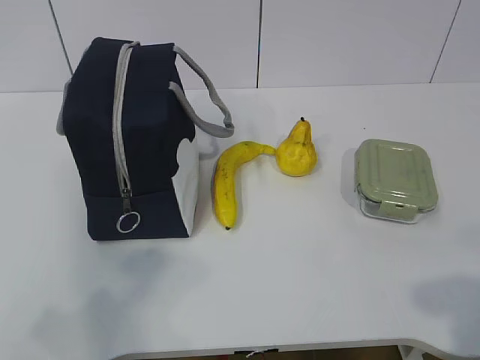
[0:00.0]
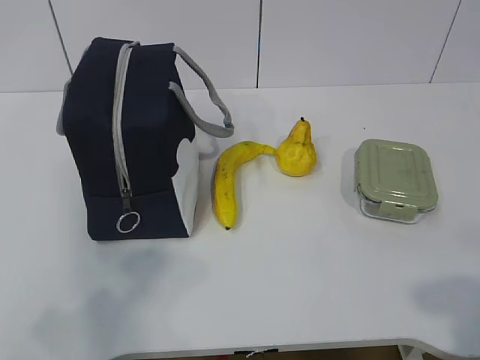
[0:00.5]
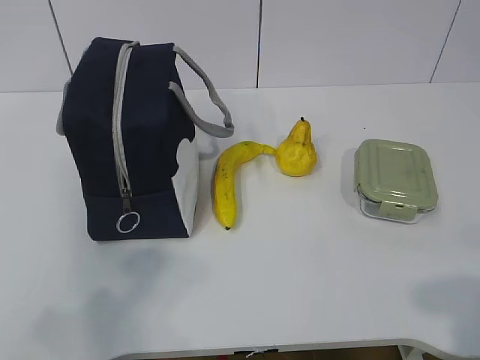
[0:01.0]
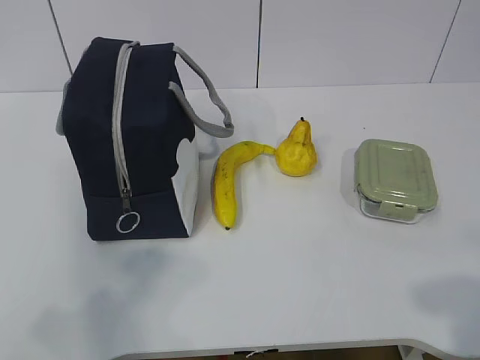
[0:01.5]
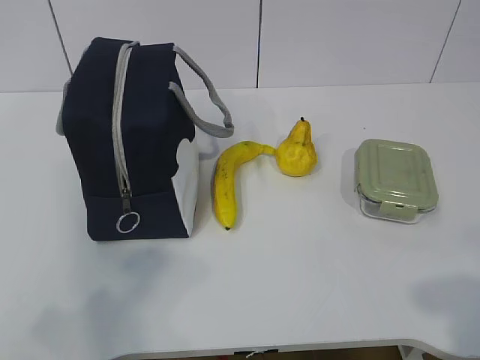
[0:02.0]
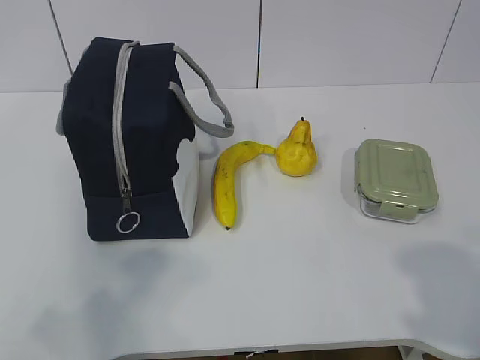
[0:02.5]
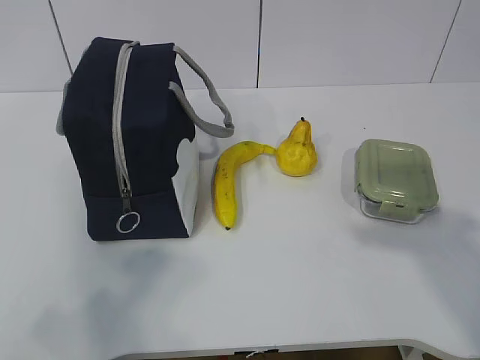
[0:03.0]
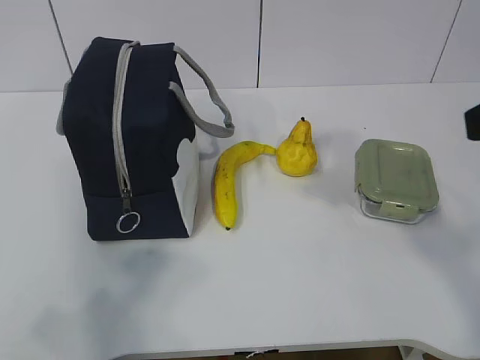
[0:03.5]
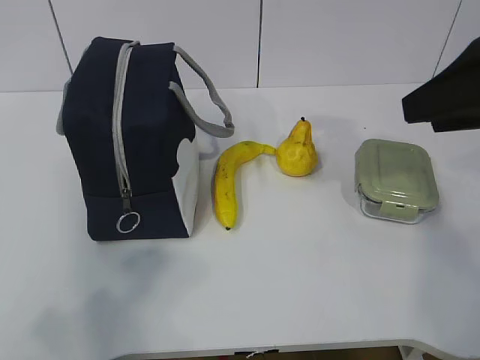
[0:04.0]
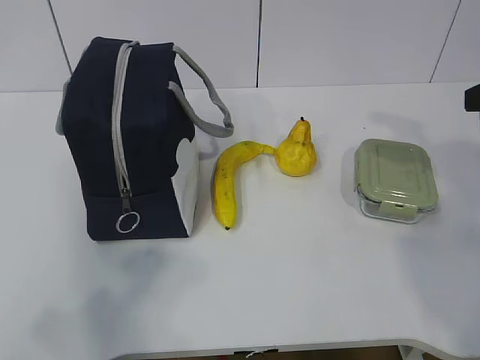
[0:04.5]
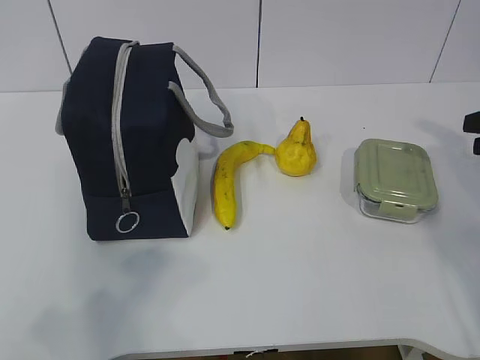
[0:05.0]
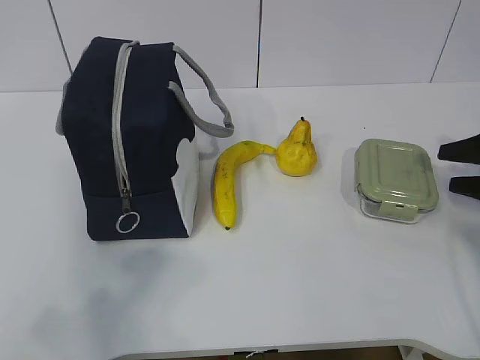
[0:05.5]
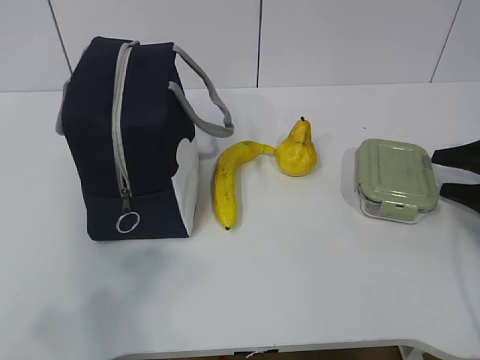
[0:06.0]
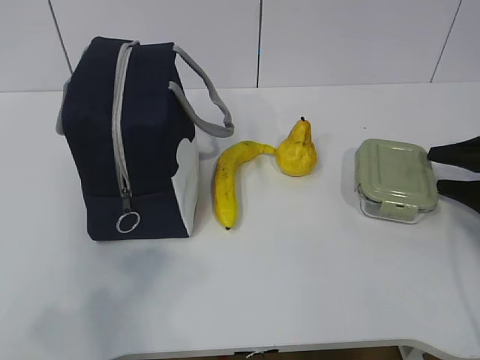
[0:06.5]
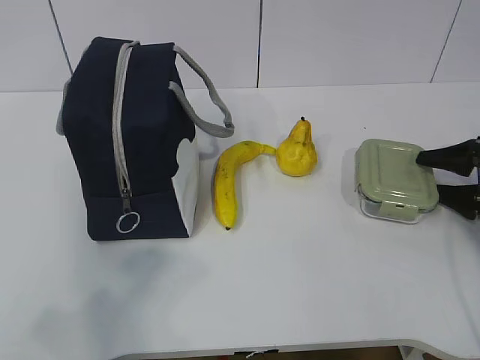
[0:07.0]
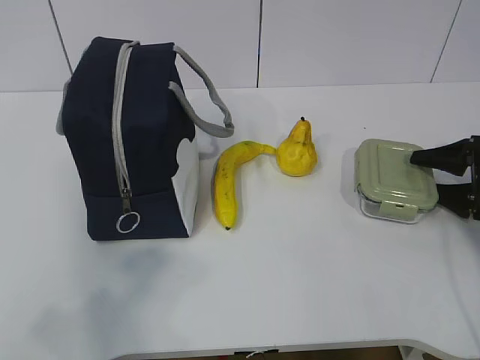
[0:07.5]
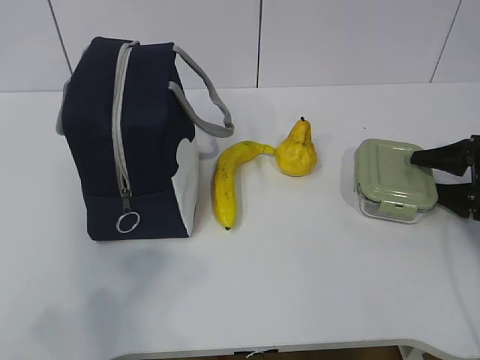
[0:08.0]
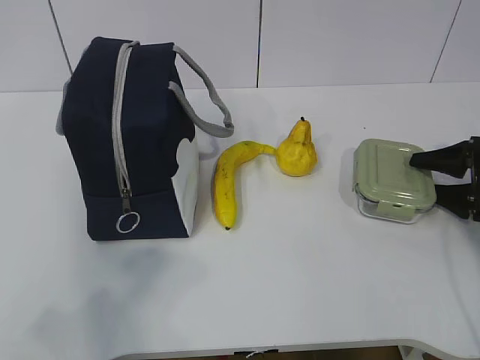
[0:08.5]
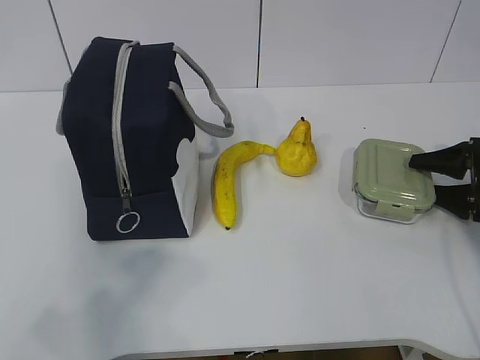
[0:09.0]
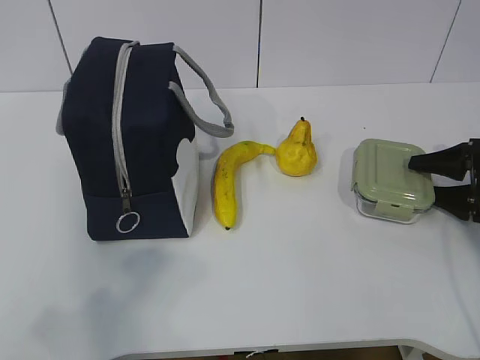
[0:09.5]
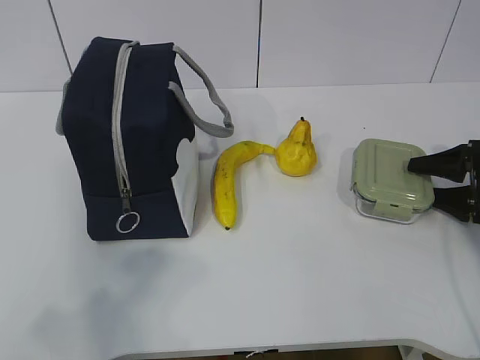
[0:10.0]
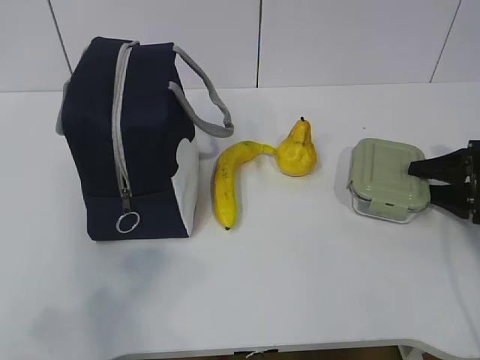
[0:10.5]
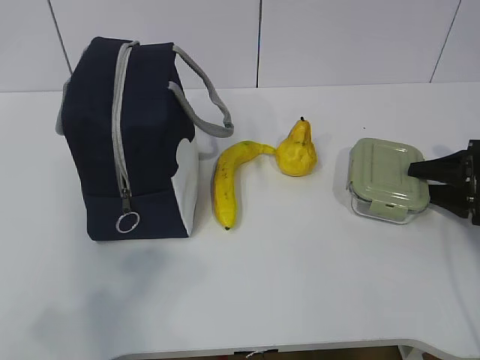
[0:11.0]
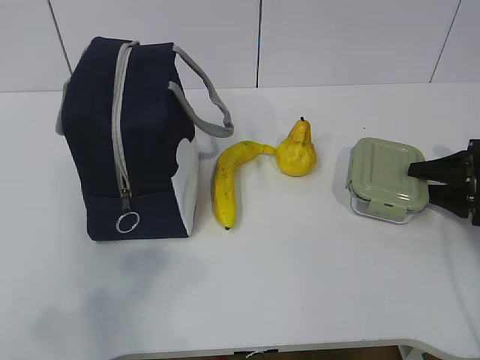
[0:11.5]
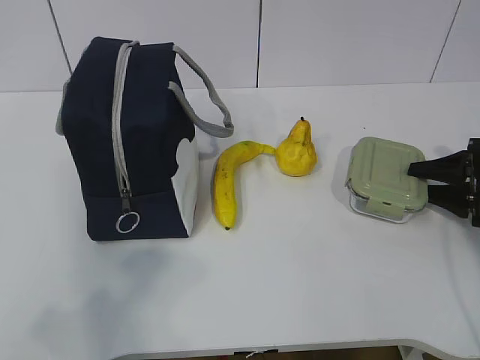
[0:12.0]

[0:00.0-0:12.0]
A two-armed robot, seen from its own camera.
Step, 0:00.0 to 0:10.0: Grab the lunch box with your right hand.
0:02.0 to 0:04.0: The right gripper is displaced forward by approximately 25 cm.
0:04.0 to 0:06.0: The right gripper moves downward, to the right and forward, approximately 30 cm.
0:06.0 to 0:08.0: The grippers stay close to where they were, moving slightly.
0:08.0 to 0:10.0: Both grippers stay put.
0:10.0 to 0:12.0: Both grippers stay put.

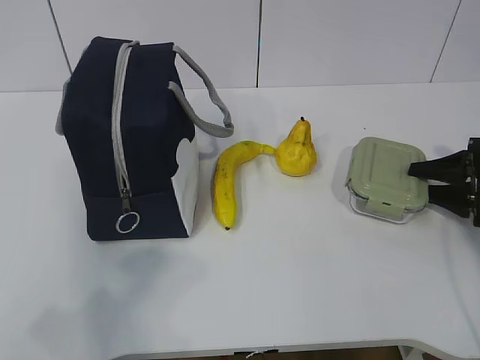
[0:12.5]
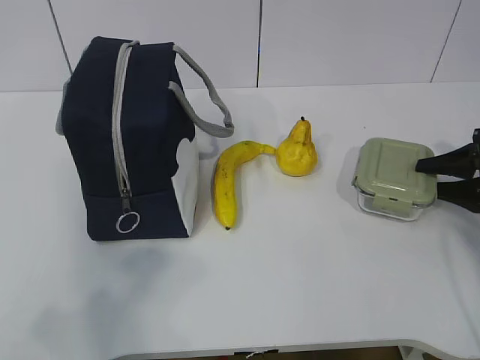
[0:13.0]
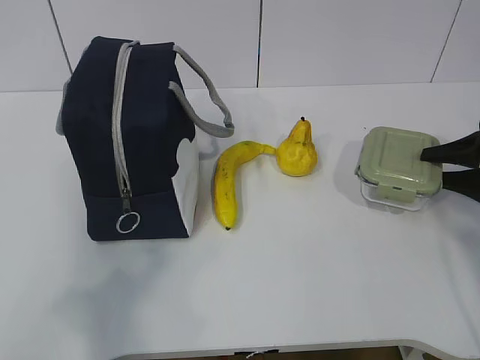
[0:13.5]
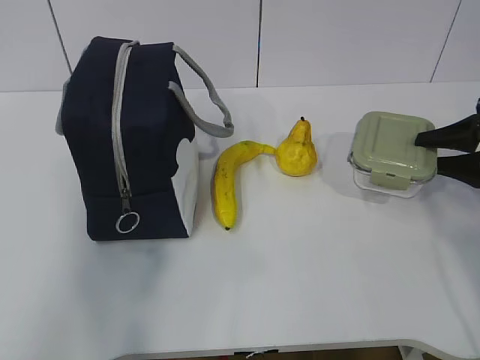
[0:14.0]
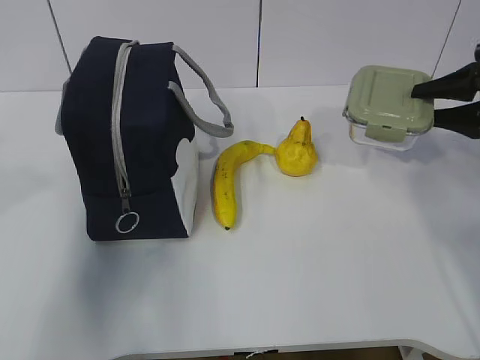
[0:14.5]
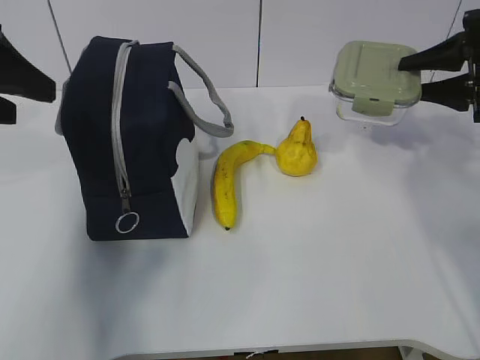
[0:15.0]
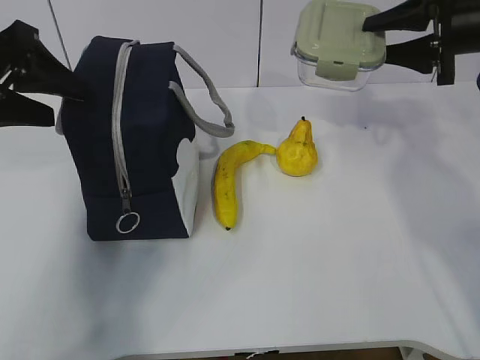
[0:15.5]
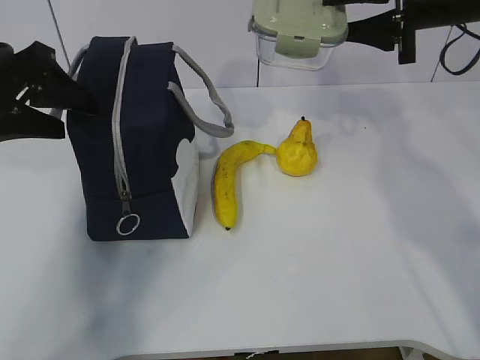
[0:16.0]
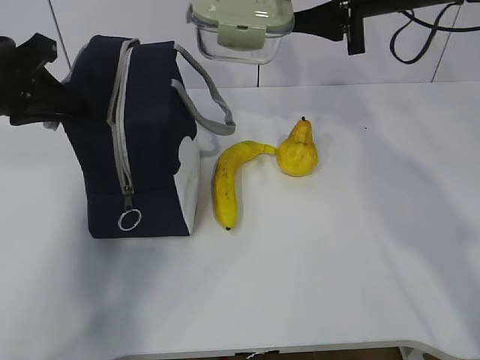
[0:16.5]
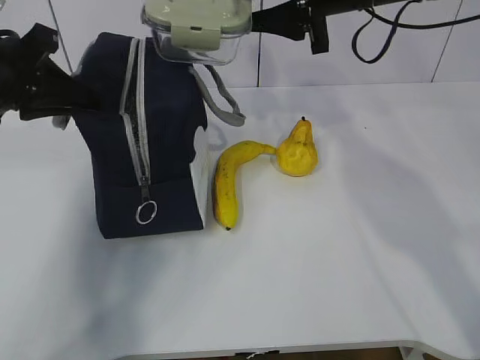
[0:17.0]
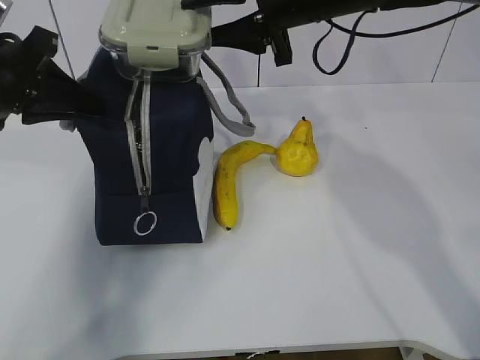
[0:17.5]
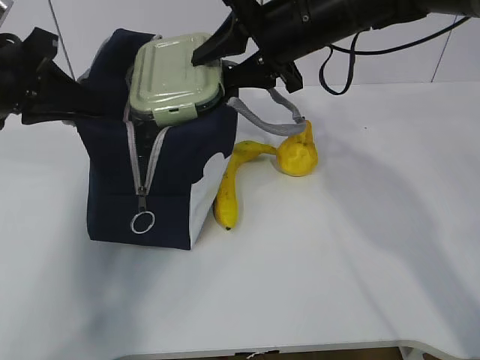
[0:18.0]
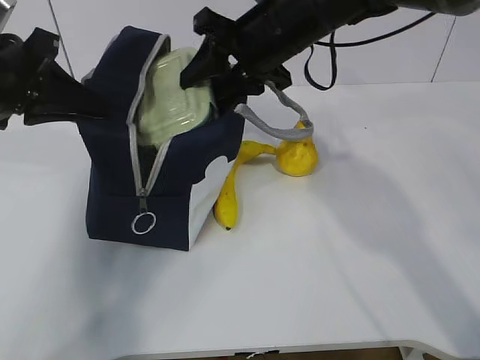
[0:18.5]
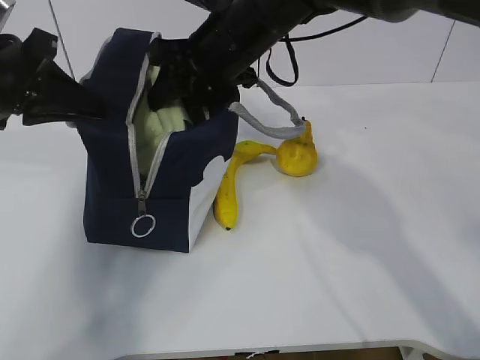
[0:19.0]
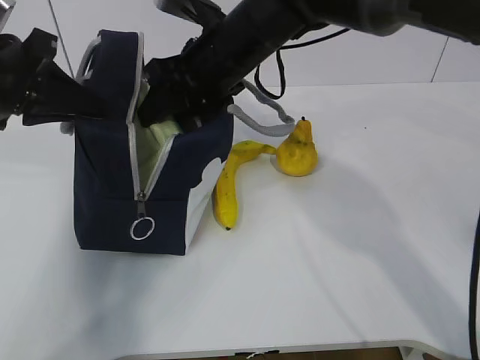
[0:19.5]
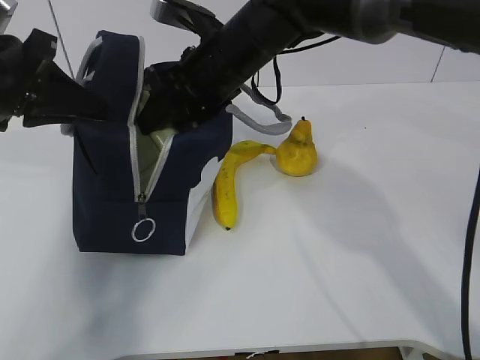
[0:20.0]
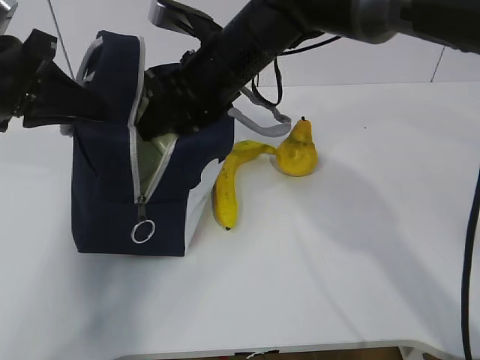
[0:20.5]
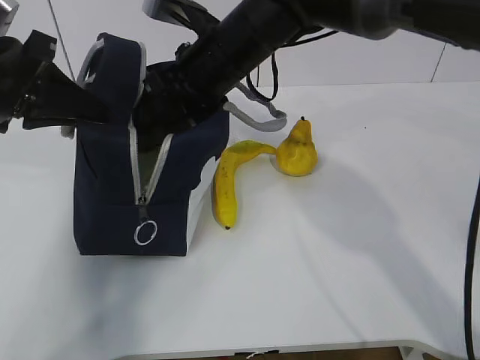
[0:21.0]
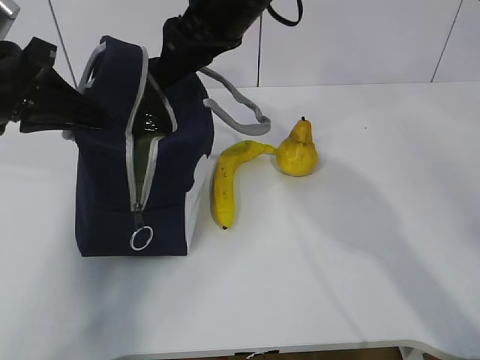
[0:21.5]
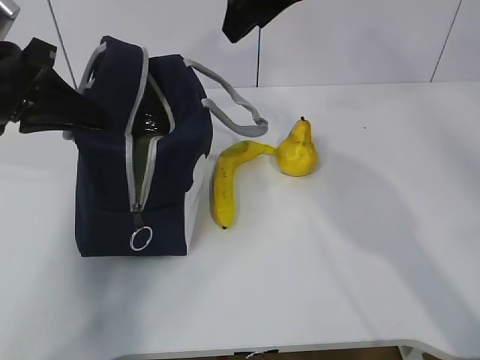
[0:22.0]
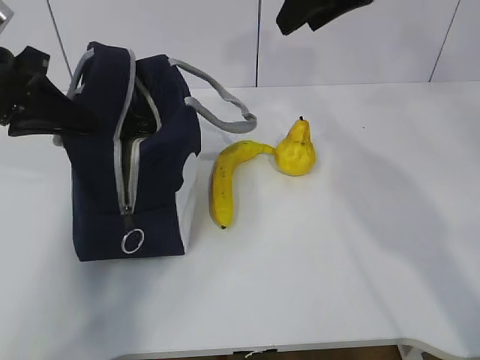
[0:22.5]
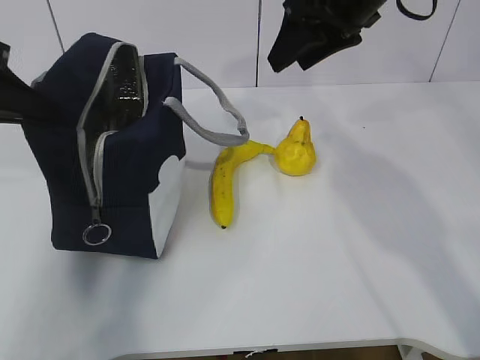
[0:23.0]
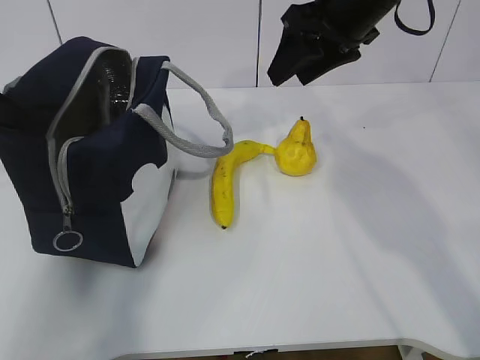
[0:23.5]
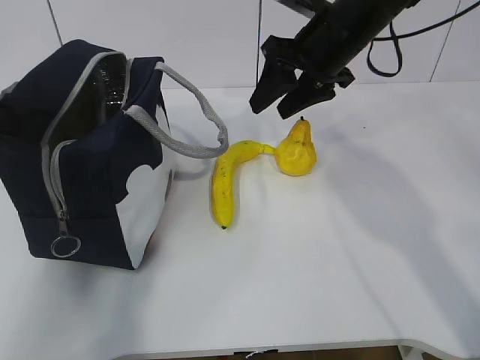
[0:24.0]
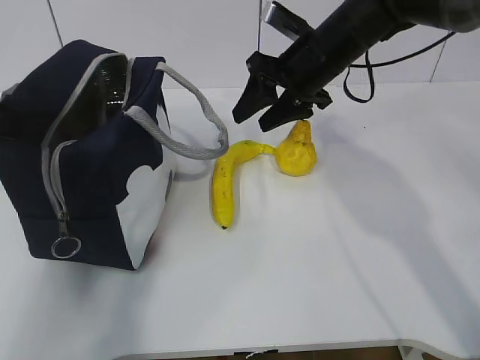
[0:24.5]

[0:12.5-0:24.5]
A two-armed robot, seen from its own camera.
Step, 0:12.5 to 0:14.5: Grab the lunch bag with your left hand.
Step, 0:15.0 to 0:17.5: Place it into the bag with your right hand.
Step, 0:18.0 to 0:23.0: Grab the banana with your right hand.
0:12.5 to 0:14.5: The left gripper goes roughly 20 cm forward. The right gripper shifts about 10 cm upward.
0:14.5 to 0:16.5: The left gripper is displaced forward and downward by about 15 cm, and closes up, while the right gripper is displaced to the left and upward by approximately 20 cm.
0:16.5 to 0:18.5: The right gripper heads to the left, covering about 10 cm.
0:18.5 to 0:20.5: The right gripper goes roughly 5 cm to the left.
0:20.5 to 0:22.5: The right gripper moves to the right and upward, some 20 cm.
0:22.5 to 0:24.5: The left gripper moves some 5 cm. The right gripper shifts some 15 cm downward.

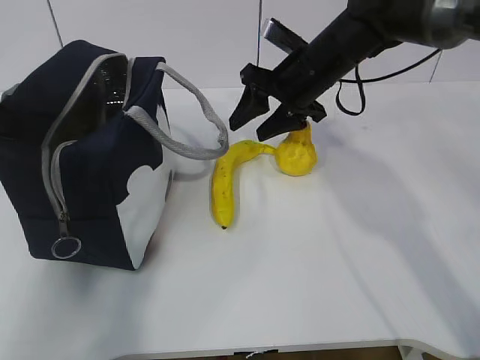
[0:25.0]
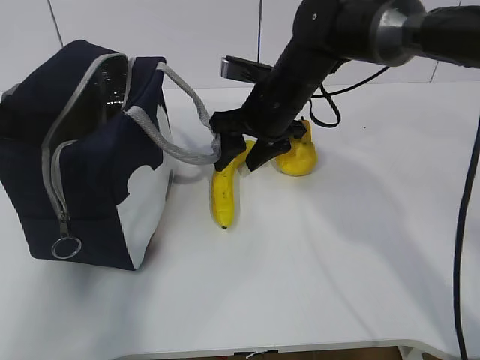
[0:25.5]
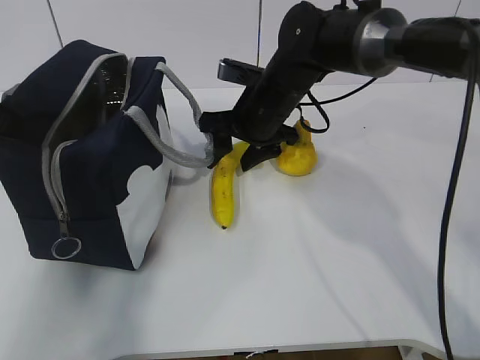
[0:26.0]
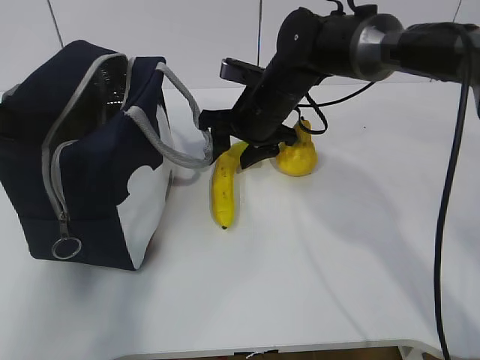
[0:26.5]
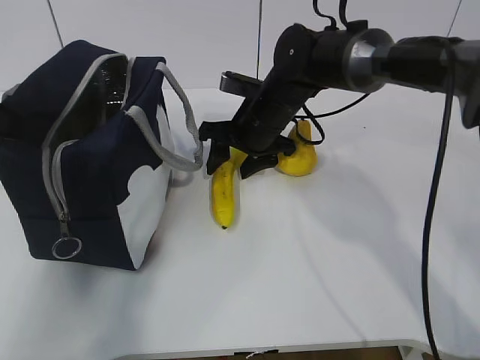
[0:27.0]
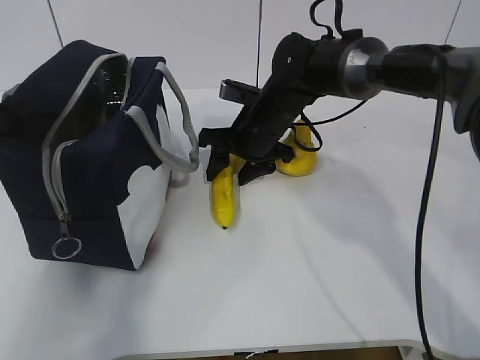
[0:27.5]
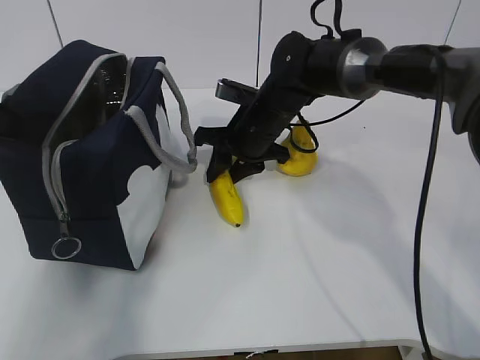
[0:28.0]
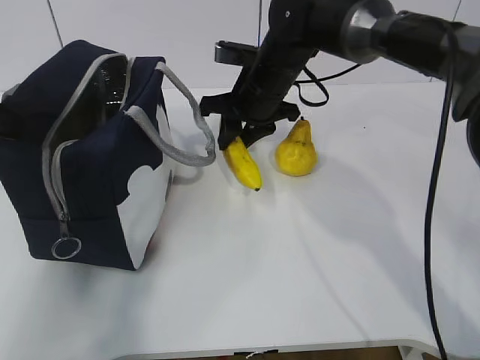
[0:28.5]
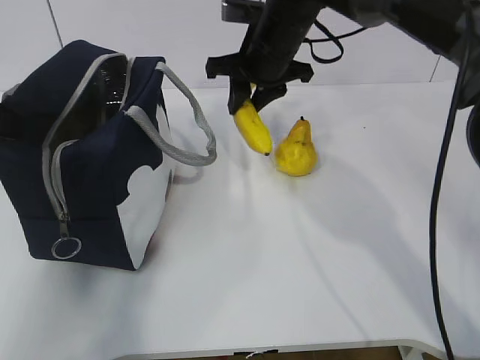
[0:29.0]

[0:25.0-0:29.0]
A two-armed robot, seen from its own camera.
0:25.0 to 0:27.0: The right gripper travels downward and to the left by roughly 10 cm.
0:27.0 to 0:29.0: The right gripper shifts approximately 10 cm upward, and closes up.
